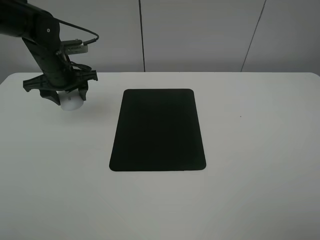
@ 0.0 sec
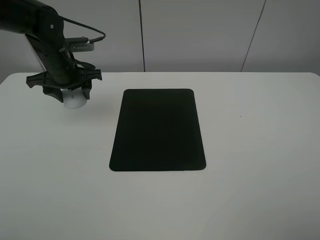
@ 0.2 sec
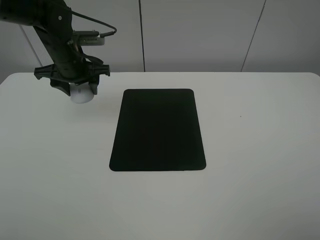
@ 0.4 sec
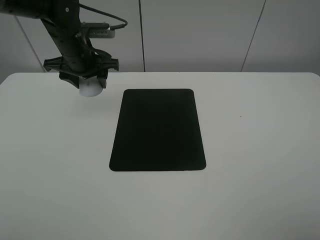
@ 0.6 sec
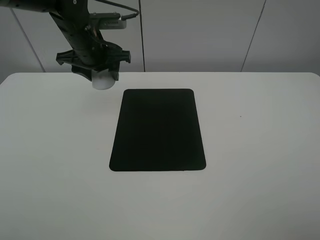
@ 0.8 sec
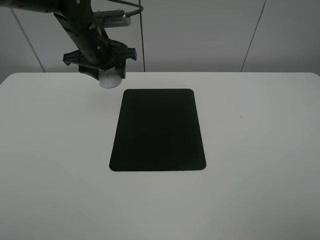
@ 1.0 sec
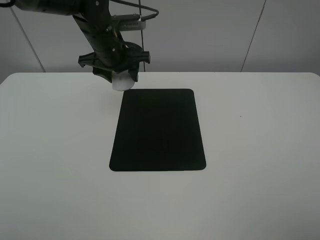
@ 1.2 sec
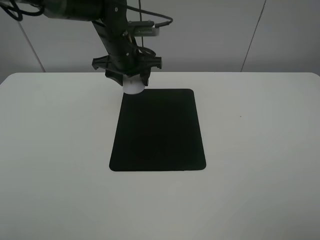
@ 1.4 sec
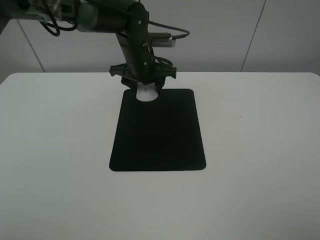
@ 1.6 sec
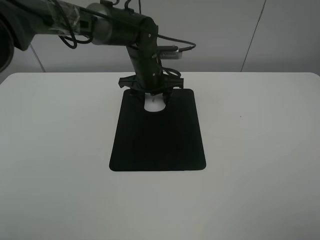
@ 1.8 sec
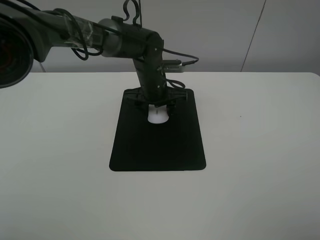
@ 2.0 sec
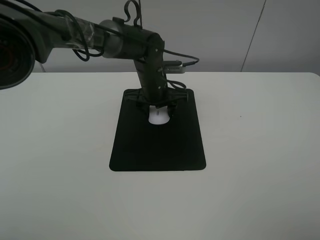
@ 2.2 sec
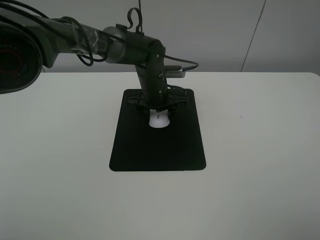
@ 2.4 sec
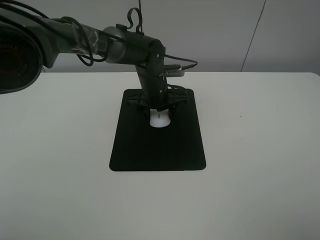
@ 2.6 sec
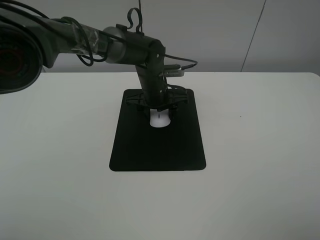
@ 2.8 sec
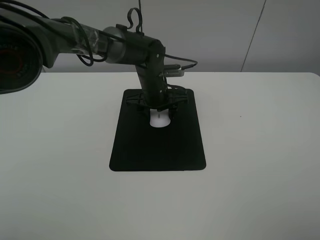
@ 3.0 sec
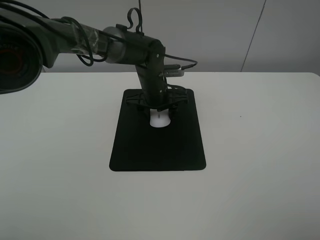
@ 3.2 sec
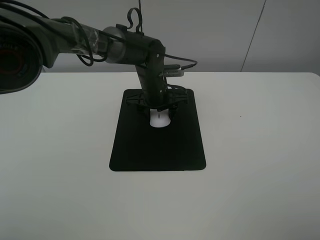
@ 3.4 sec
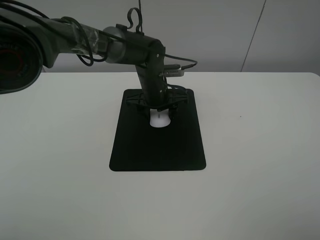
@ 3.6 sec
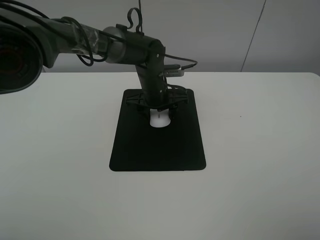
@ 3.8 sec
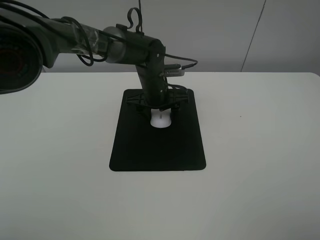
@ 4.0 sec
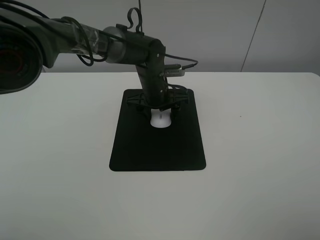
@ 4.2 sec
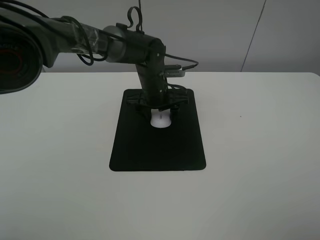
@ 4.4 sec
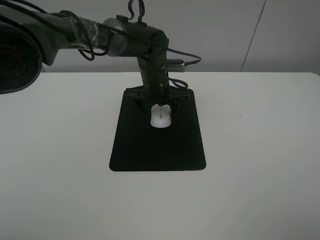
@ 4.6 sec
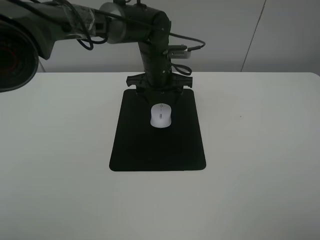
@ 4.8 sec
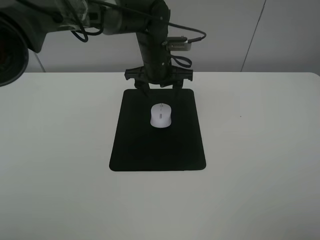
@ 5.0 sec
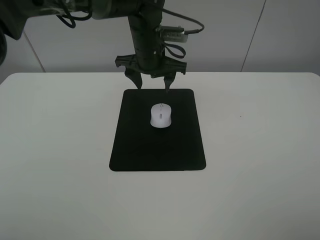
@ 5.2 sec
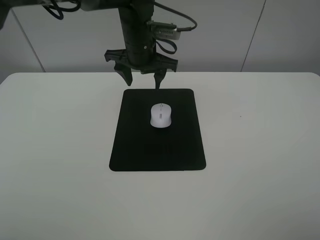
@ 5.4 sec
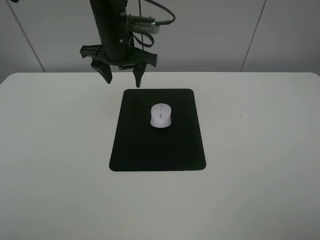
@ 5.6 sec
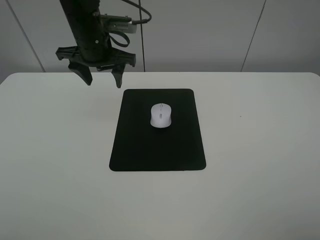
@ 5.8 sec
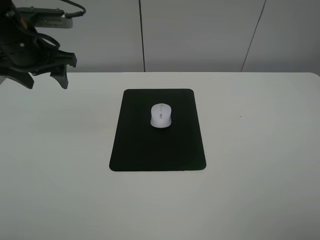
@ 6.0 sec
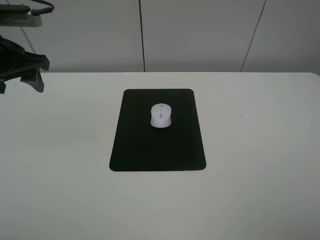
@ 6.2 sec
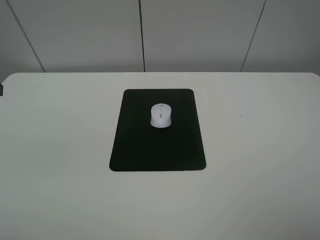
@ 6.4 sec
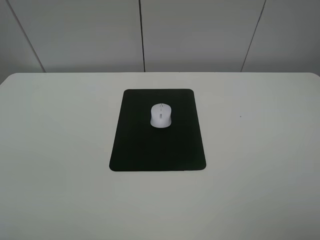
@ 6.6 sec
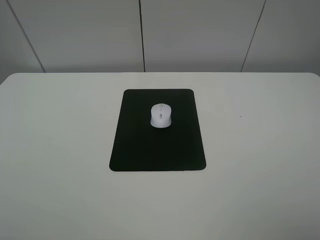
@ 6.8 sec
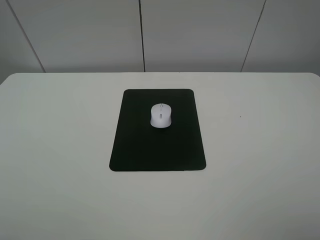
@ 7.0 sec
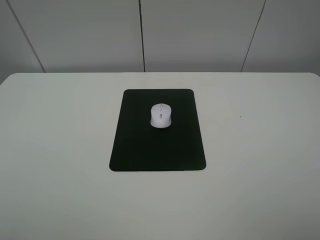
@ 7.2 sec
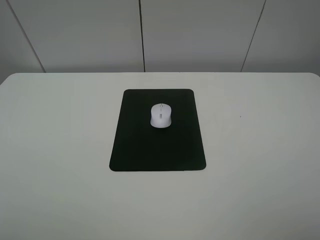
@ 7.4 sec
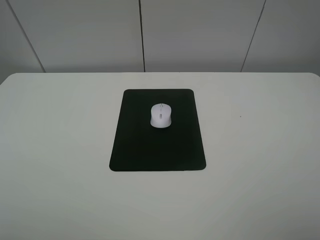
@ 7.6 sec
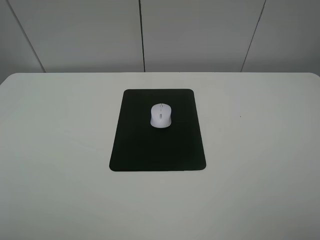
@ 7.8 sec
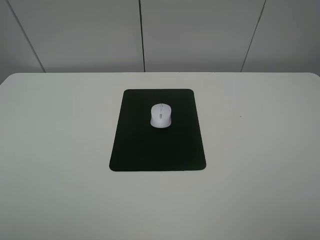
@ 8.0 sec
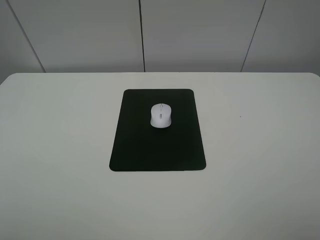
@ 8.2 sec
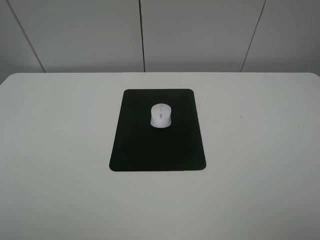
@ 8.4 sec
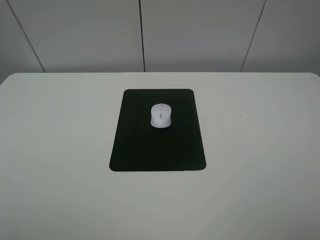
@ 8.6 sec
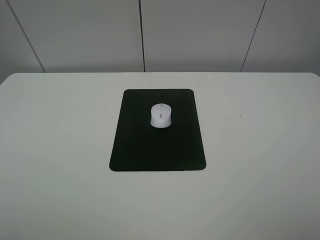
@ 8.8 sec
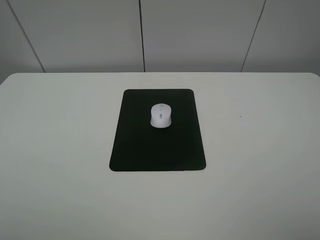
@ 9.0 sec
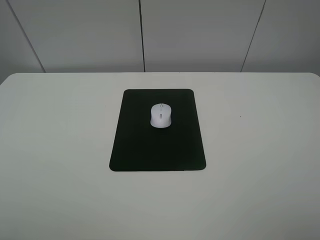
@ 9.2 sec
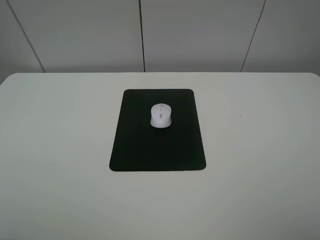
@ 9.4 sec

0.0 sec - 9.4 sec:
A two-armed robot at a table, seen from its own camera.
Step, 0.0 sec - 4.0 sec: Place the mouse on the mouse mat with the left gripper.
0.0 sec - 1.6 sec: The left gripper moves to the right, some 20 cm.
1.6 sec - 3.2 sec: The left gripper travels downward by roughly 5 cm.
3.2 sec - 4.8 sec: The left gripper changes place by approximately 5 cm, and opens.
4.8 sec - 6.2 sec: The left gripper travels to the left, upward and backward by some 30 cm.
6.2 sec - 7.8 sec: The left gripper heads backward, covering about 30 cm.
